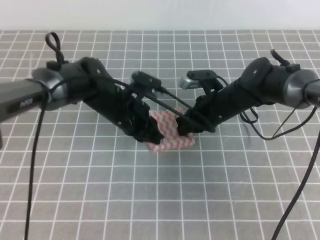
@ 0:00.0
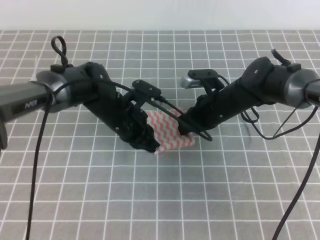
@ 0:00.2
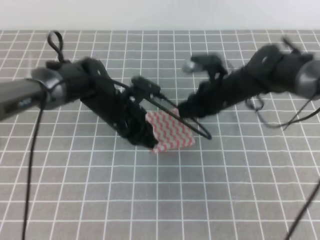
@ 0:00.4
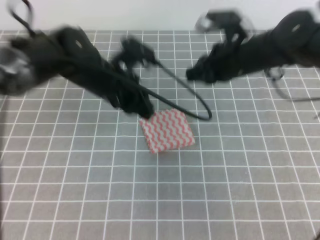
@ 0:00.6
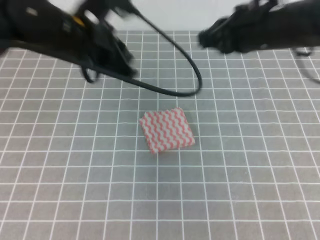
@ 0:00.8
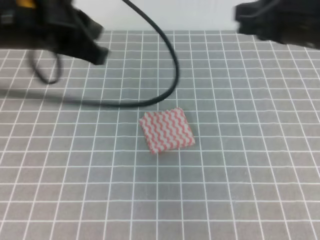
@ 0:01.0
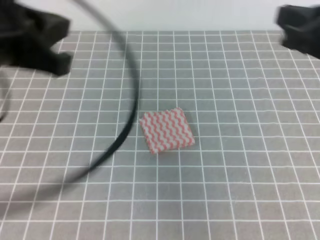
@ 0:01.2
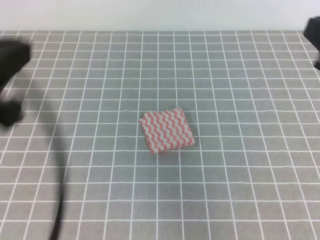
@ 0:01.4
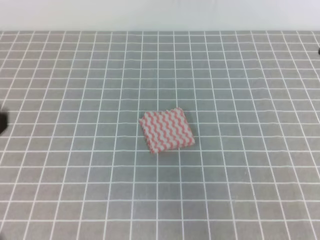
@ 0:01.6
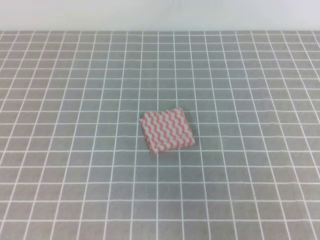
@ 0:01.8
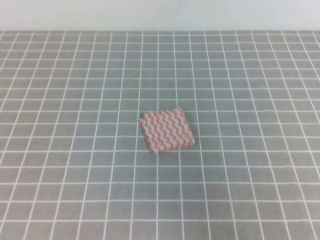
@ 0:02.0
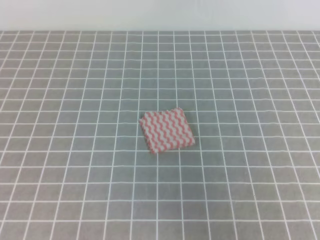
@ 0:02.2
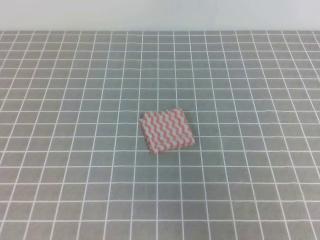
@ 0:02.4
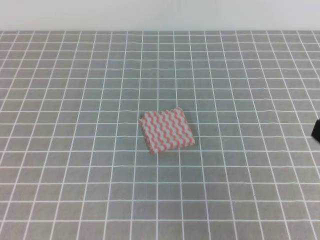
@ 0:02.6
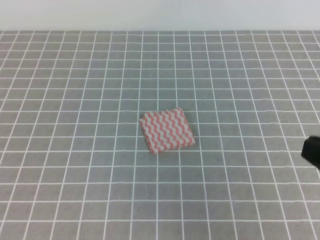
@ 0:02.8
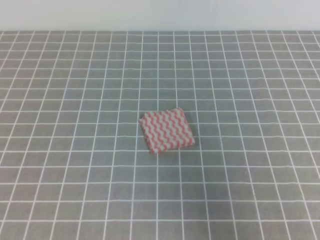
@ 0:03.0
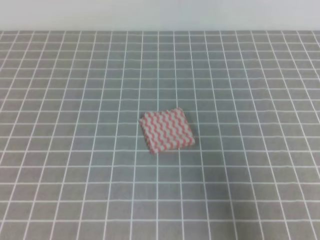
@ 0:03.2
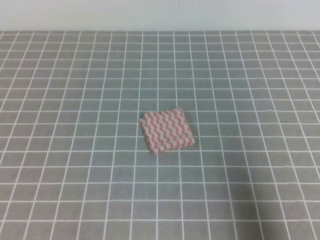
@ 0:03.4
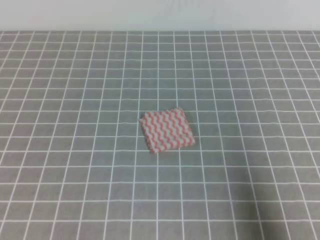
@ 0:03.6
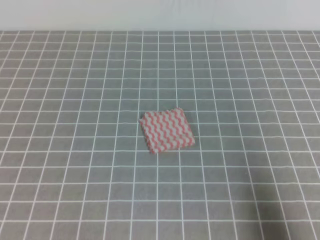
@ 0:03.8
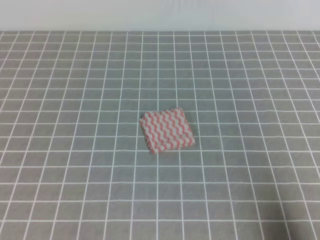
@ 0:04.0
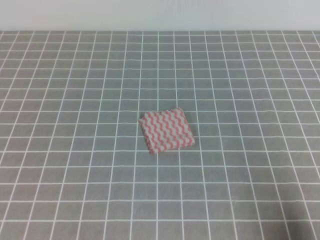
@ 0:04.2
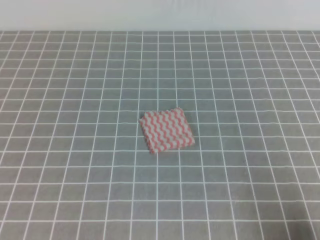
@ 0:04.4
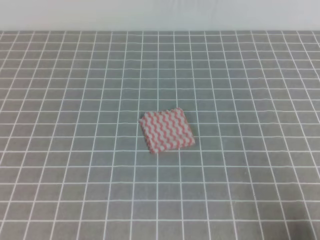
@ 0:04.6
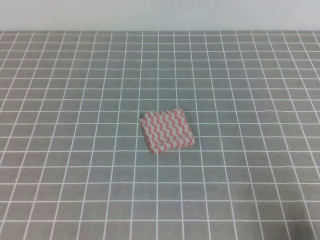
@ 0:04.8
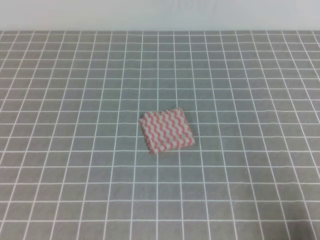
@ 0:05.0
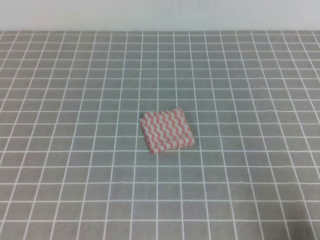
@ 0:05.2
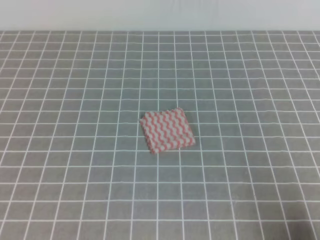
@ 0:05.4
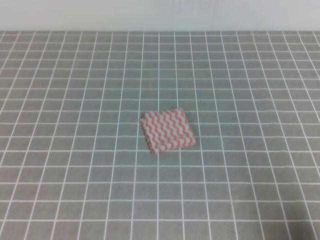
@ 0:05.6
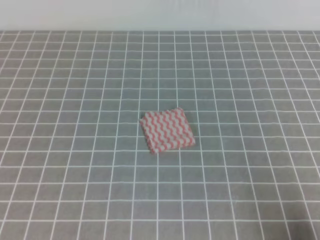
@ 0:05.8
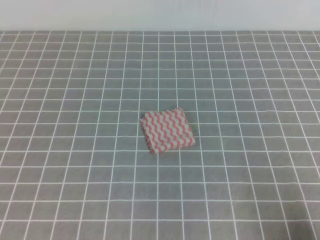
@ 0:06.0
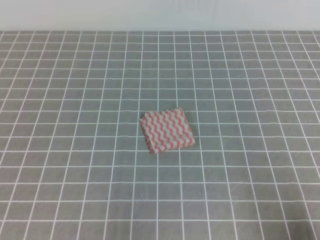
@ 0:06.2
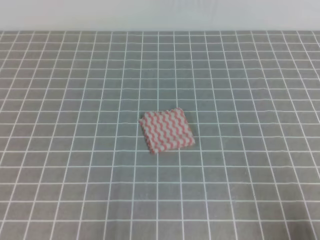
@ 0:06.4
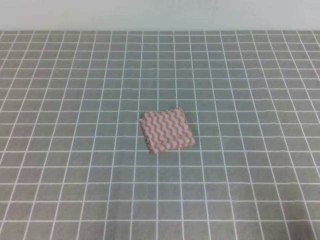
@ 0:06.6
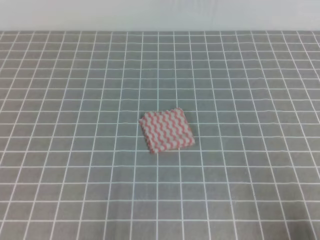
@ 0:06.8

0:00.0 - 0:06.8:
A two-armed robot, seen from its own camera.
0:00.0 - 0:01.4: The left gripper goes approximately 35 cm backward, upward and to the left, while the right gripper heads upward, backward and to the right, covering about 35 cm.
0:01.4 - 0:02.8: The left gripper heads backward, downward and to the left, covering some 15 cm. The right gripper travels backward and downward by about 10 cm.
0:02.8 - 0:04.0: The right gripper moves downward and to the right, some 15 cm.
